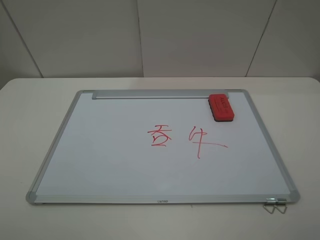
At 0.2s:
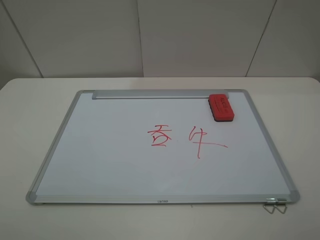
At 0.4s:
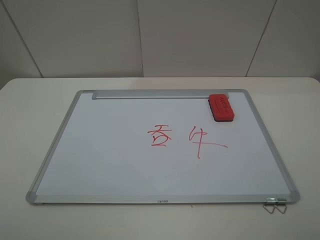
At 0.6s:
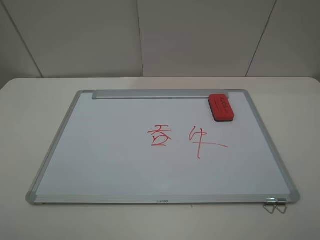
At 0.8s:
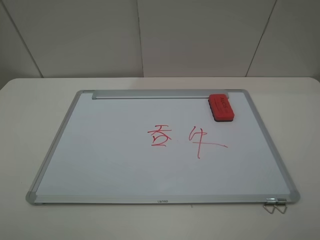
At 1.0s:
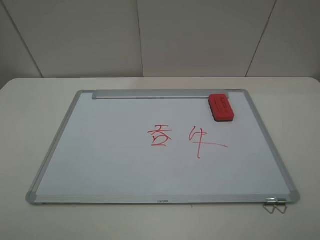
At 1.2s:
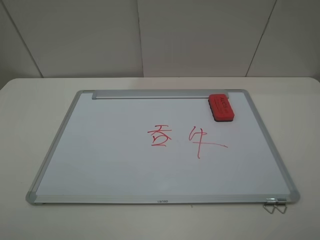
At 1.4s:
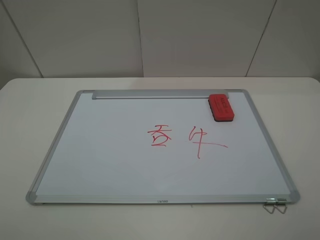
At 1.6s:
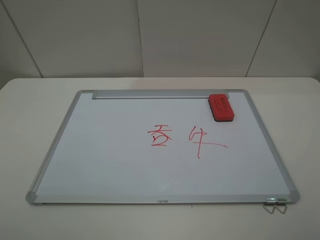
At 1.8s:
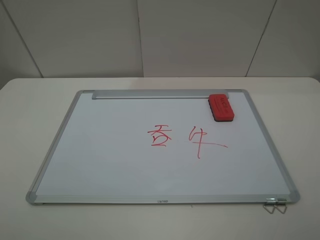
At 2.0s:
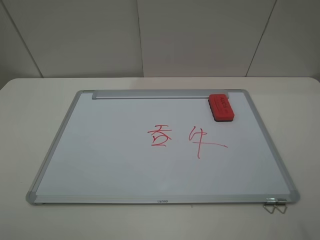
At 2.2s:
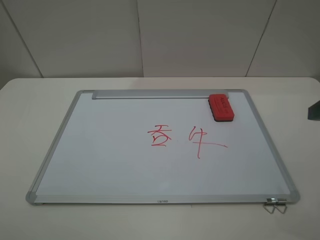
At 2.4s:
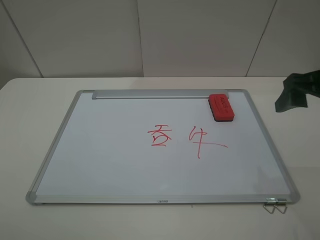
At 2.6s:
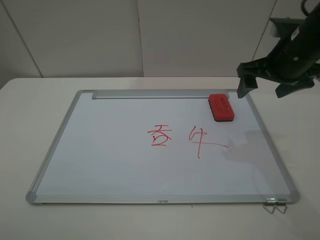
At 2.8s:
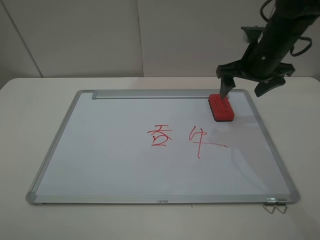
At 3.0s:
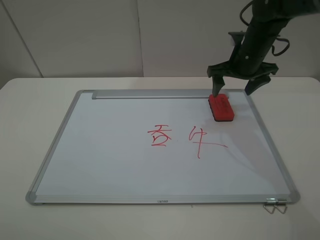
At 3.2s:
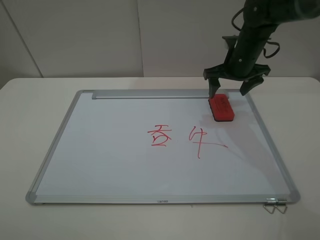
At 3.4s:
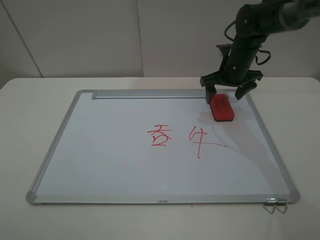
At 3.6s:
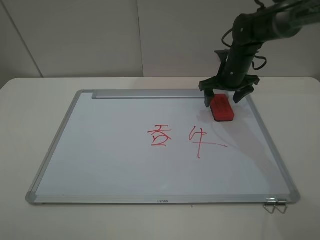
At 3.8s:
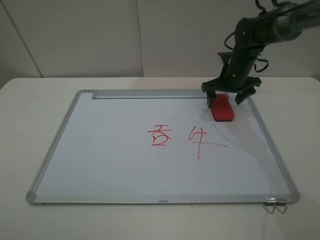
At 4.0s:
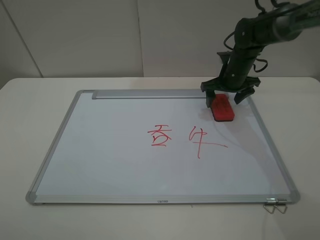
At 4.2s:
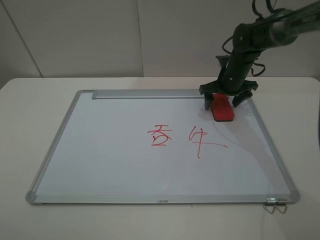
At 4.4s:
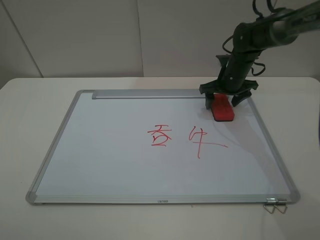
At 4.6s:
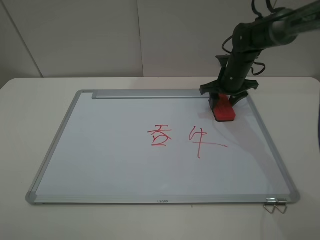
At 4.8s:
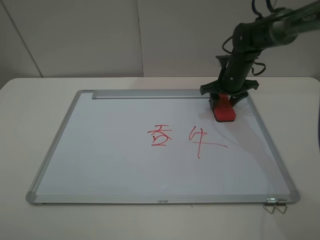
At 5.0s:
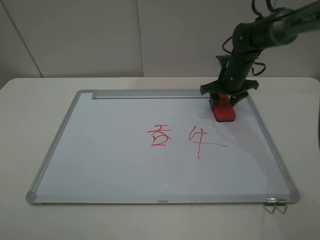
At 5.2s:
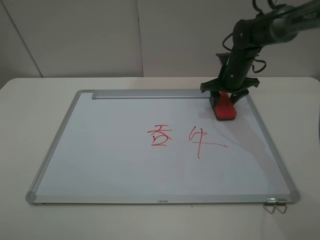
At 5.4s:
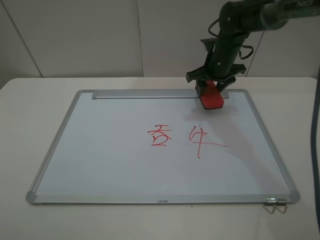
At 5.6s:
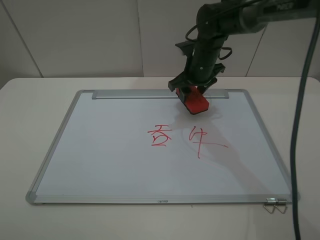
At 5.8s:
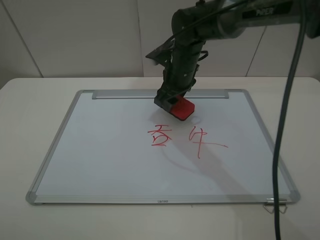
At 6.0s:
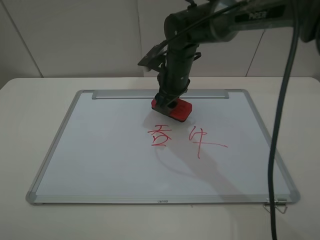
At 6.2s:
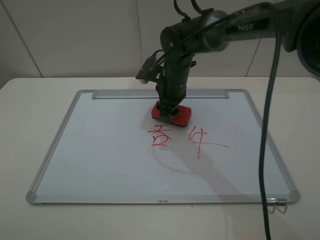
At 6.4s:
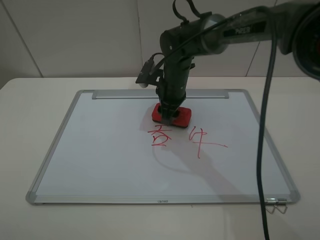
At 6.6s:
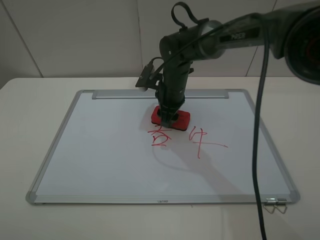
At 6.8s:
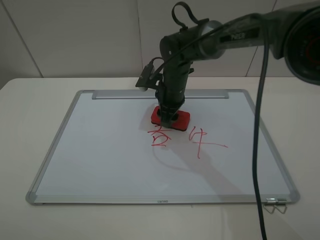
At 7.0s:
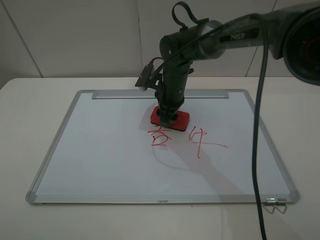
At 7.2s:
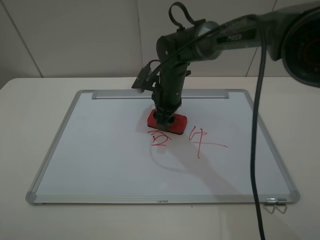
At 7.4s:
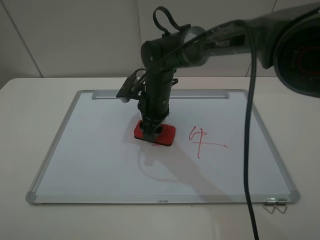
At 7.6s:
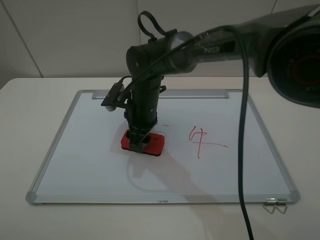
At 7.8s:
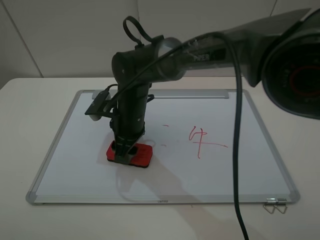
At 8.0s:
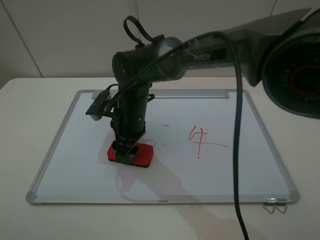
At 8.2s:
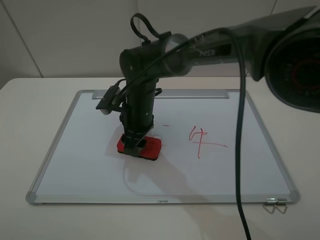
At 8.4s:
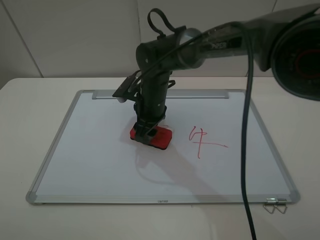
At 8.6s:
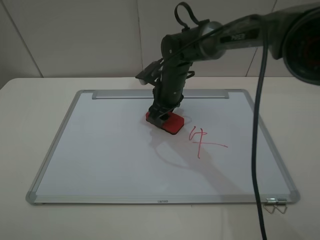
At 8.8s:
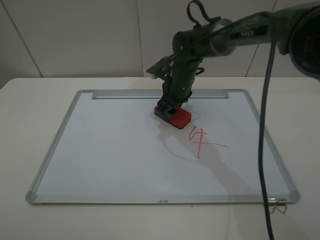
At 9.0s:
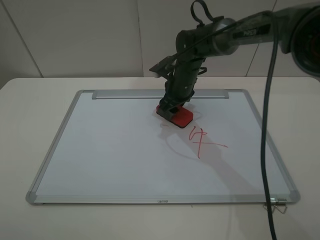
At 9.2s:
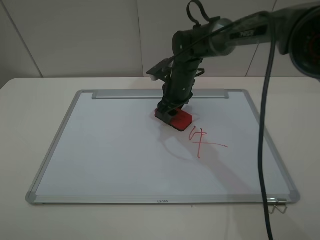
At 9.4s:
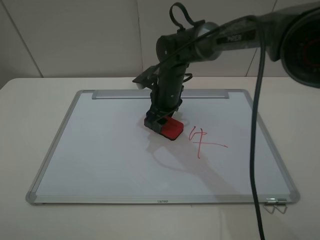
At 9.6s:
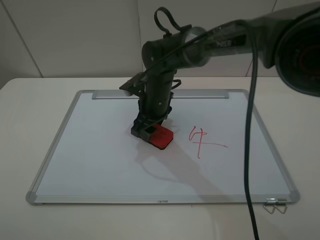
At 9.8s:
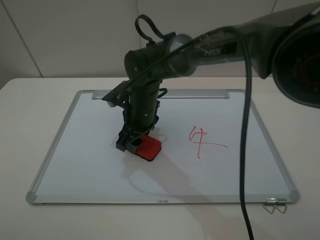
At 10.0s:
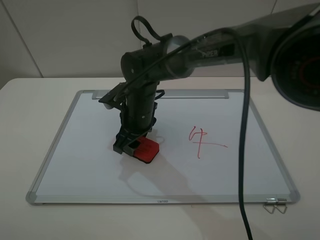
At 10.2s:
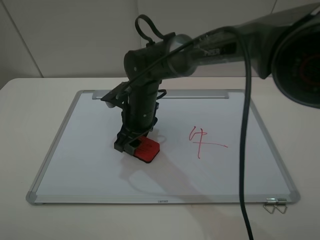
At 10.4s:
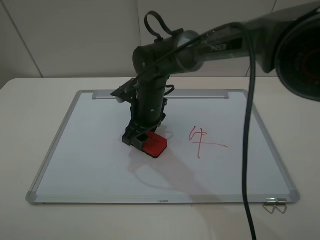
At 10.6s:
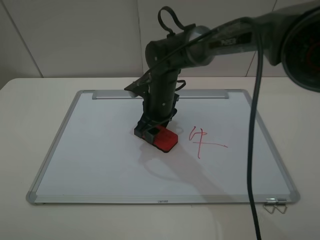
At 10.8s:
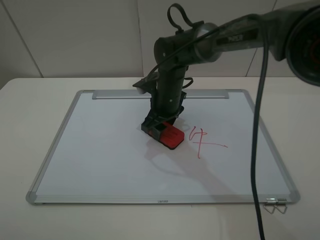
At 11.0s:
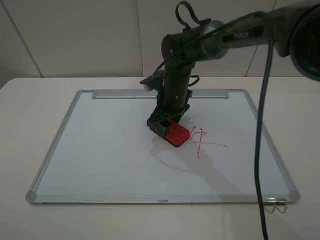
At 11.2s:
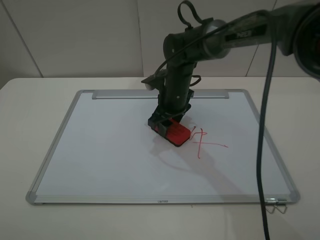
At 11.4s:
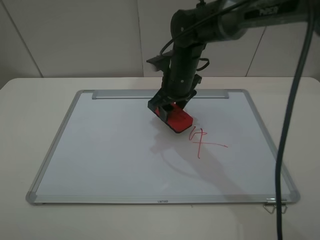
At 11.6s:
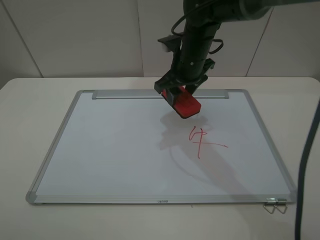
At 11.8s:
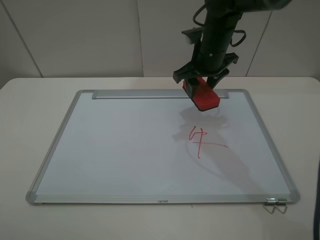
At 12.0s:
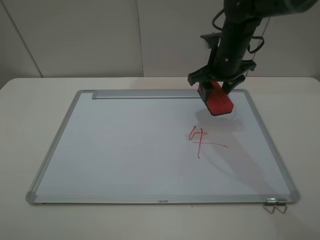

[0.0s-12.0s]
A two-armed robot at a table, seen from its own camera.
Step, 0.0s to 4.4s: Grasp the eraser with the right gripper.
Step, 4.6s to 11.4s: Grasp the eraser and wipe the blackboard with the right gripper.
0.0s to 1.6s: The two grippers keep their place.
1.6s to 3.0s: The right gripper shifts approximately 40 cm forward.
3.0s to 4.4s: The right gripper is displaced downward by approximately 10 cm.
4.4s to 6.0s: The right gripper goes roughly 15 cm to the left, and closes up.
6.0s to 7.6s: The right gripper travels to the left and backward by about 10 cm.
7.6s to 9.0s: The right gripper goes roughly 15 cm to the right and forward.
9.0s to 10.4s: The right gripper goes some 10 cm backward and to the left.
10.4s to 12.0s: The right gripper heads to the right and upward, covering some 20 cm.

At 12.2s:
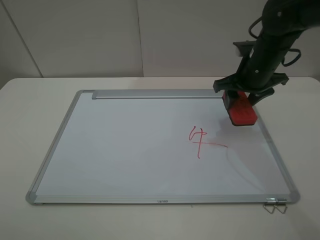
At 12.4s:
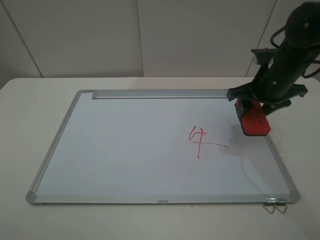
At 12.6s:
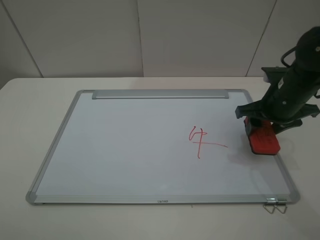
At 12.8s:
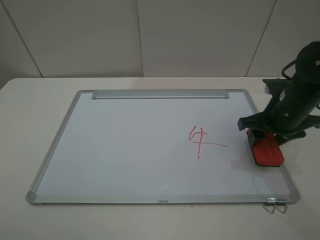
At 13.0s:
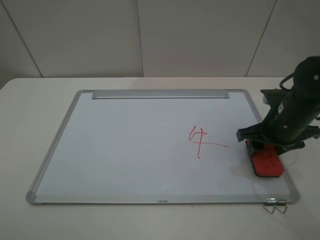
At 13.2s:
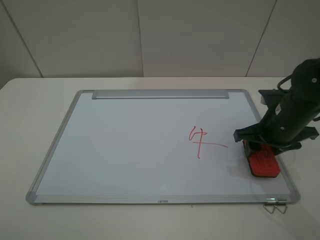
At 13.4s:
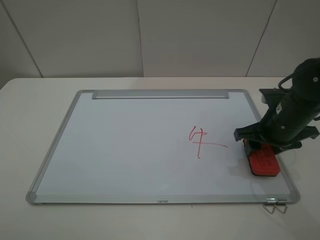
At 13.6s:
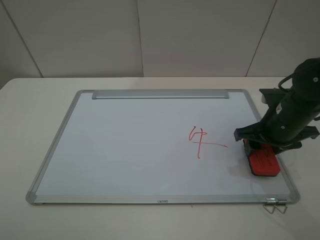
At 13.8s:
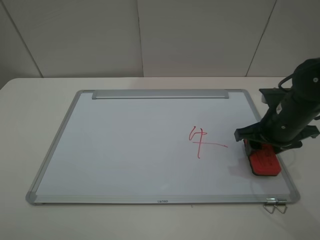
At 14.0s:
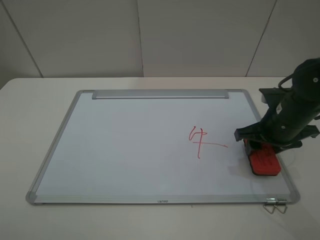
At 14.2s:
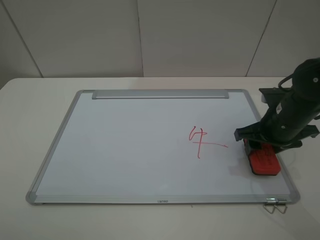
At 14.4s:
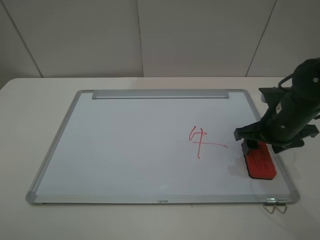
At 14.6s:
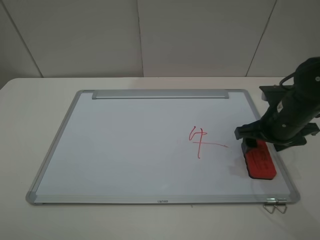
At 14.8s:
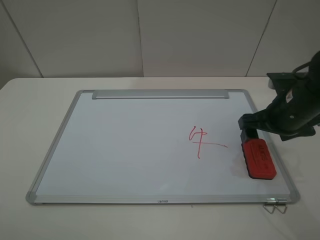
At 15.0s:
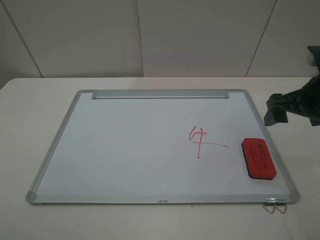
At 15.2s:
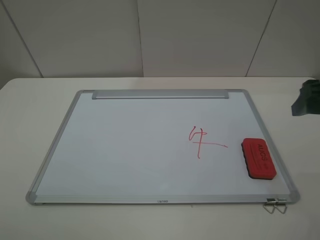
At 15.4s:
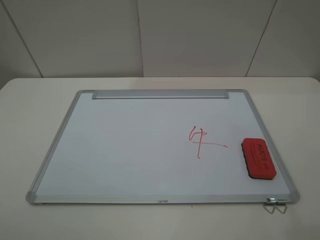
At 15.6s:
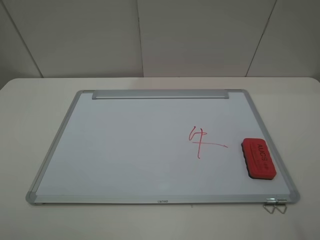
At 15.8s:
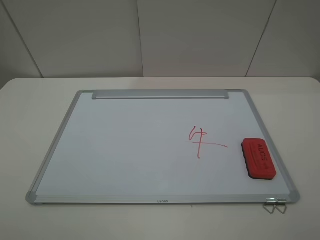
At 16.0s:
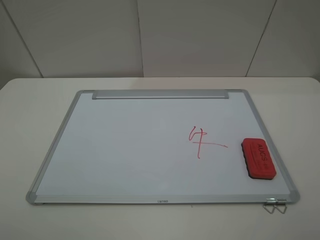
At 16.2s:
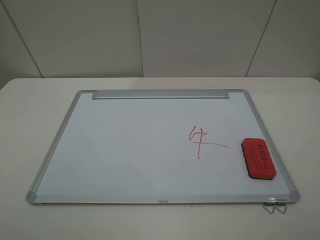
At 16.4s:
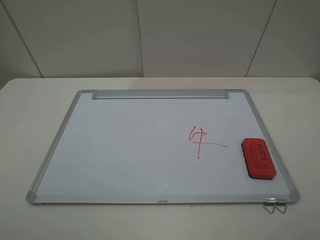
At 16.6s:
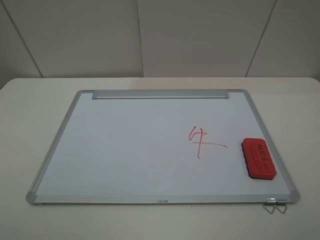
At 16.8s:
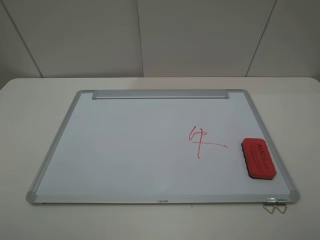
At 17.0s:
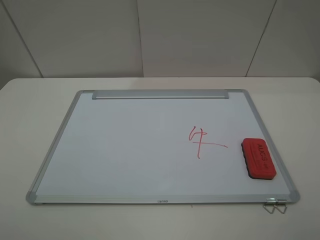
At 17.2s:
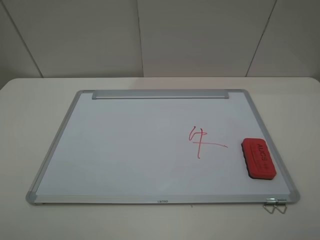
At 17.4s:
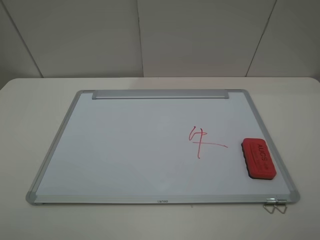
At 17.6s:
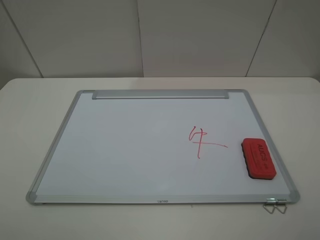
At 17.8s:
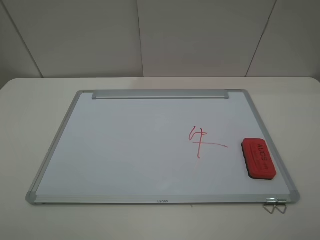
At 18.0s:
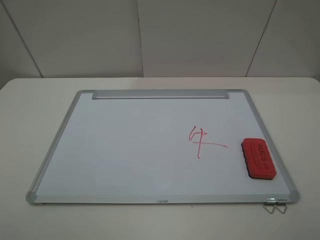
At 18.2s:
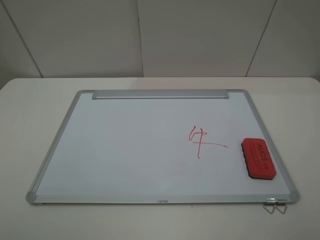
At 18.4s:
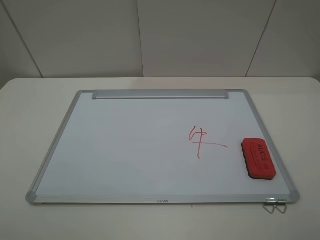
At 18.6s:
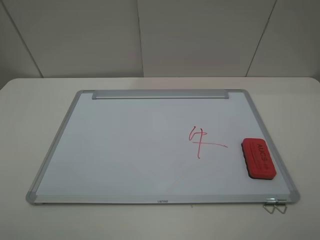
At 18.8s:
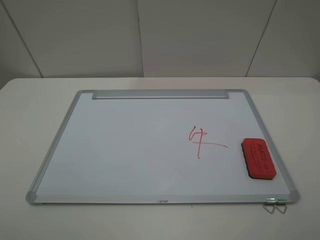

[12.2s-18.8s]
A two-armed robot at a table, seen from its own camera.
Step, 12.2s to 14.8s: Place the eraser with the right gripper.
12.2s to 13.8s: The right gripper goes about 10 cm backward and downward.
13.8s to 15.4s: The right gripper travels upward and backward by roughly 20 cm, and opens its fingers.
17.2s to 18.8s: Both grippers stay about where they are.
